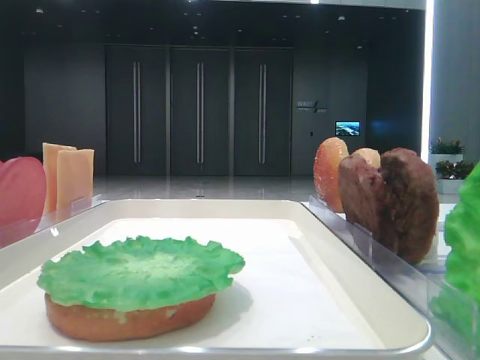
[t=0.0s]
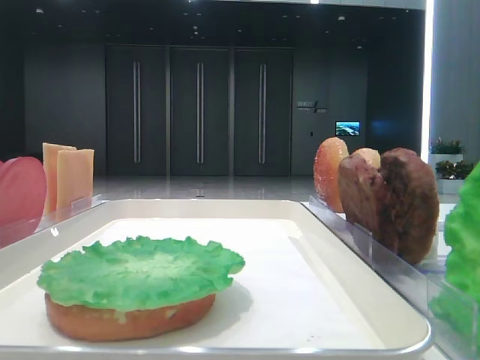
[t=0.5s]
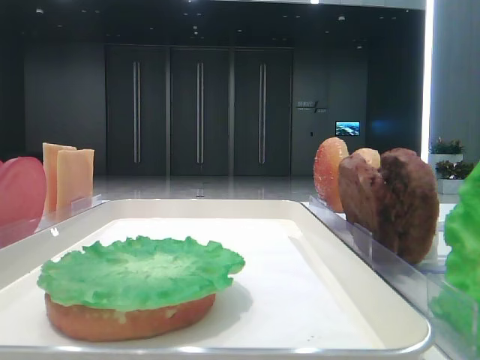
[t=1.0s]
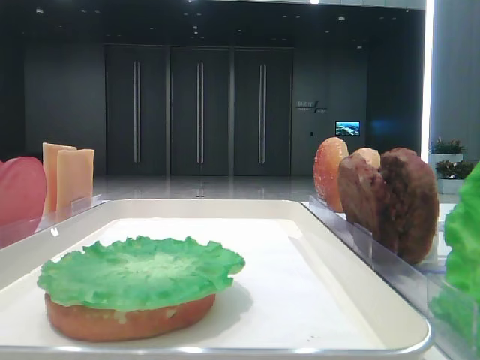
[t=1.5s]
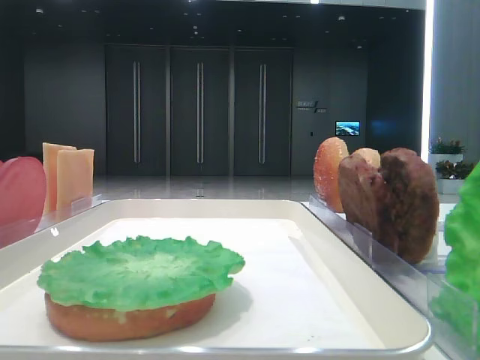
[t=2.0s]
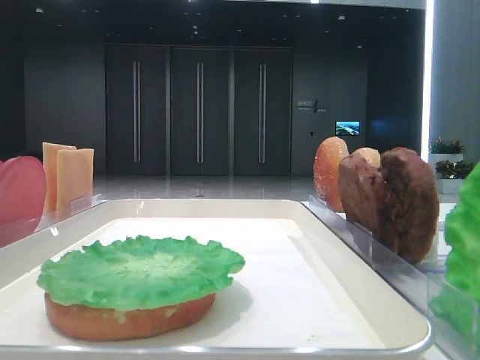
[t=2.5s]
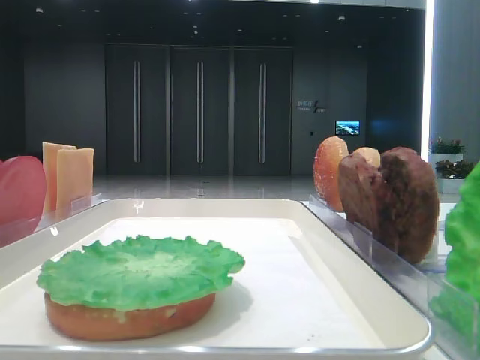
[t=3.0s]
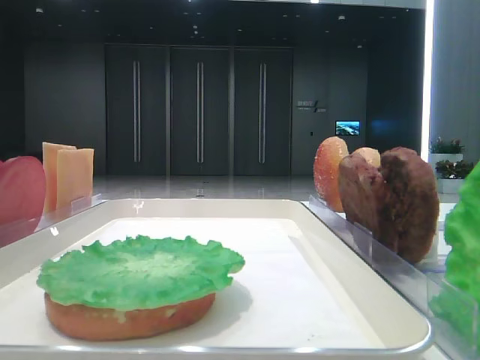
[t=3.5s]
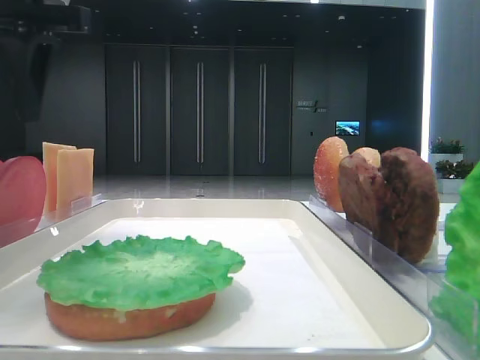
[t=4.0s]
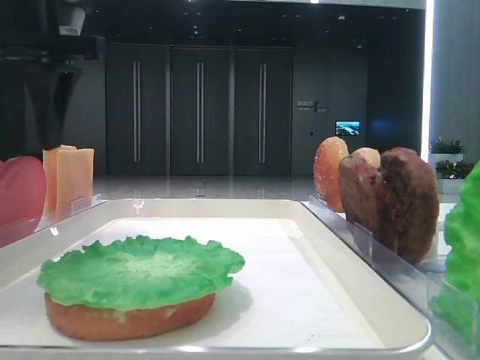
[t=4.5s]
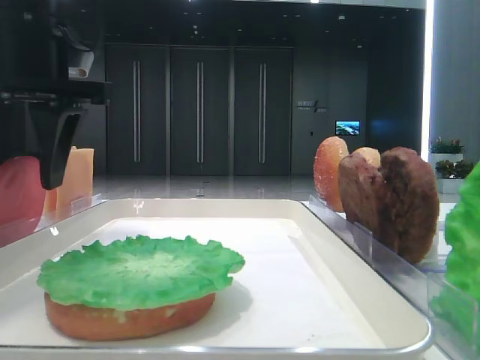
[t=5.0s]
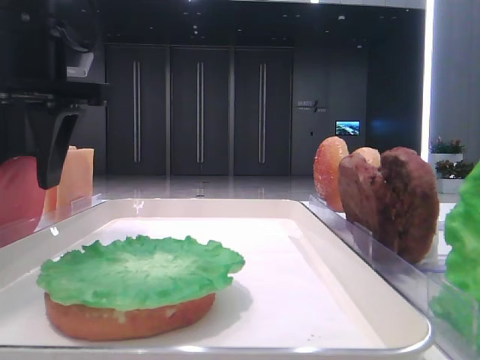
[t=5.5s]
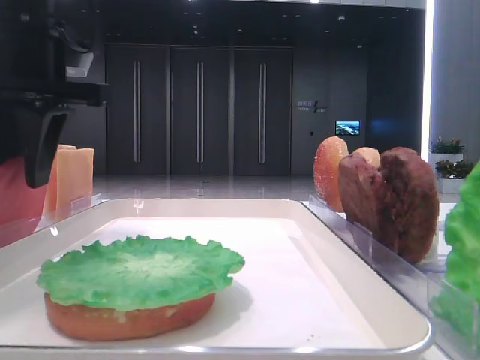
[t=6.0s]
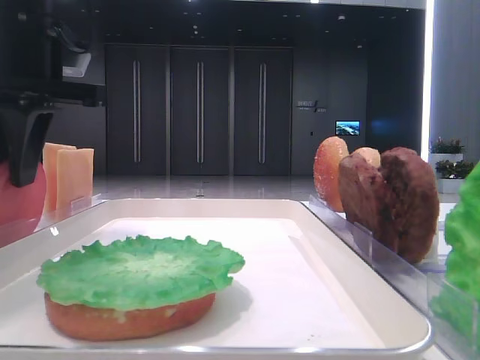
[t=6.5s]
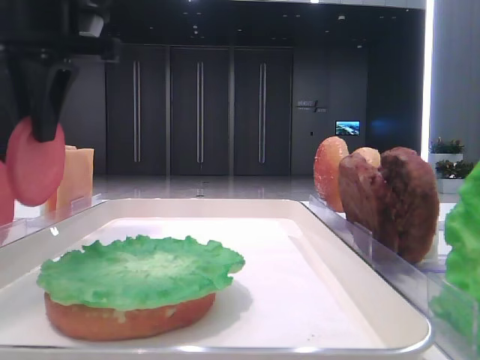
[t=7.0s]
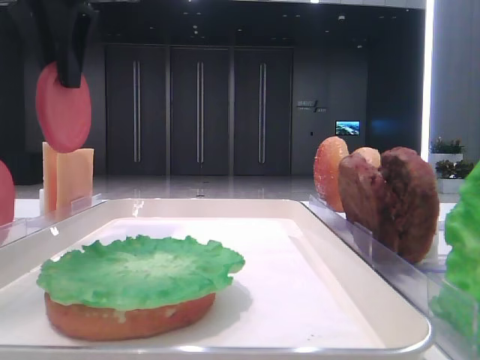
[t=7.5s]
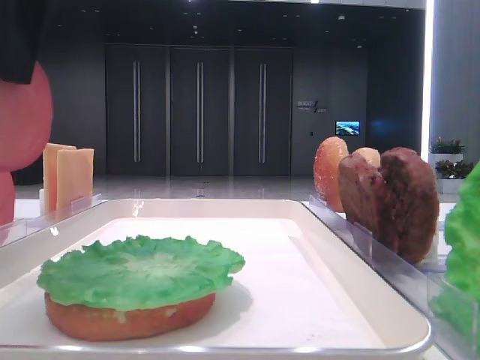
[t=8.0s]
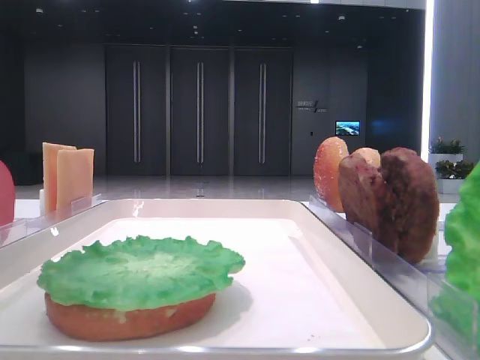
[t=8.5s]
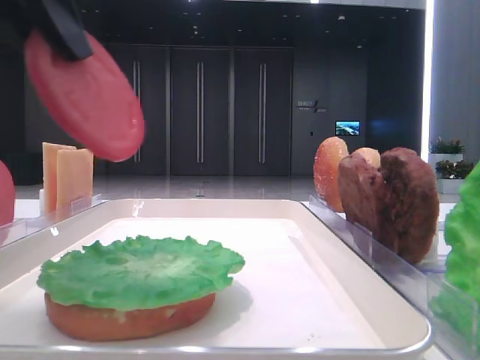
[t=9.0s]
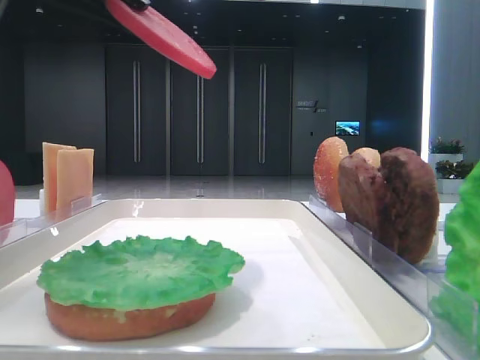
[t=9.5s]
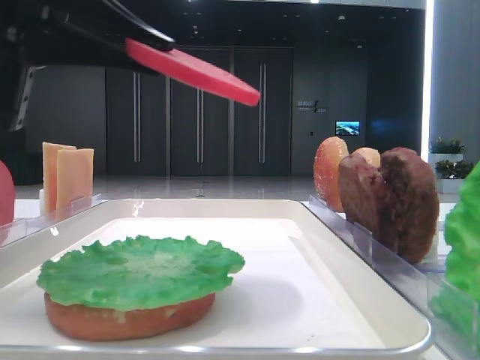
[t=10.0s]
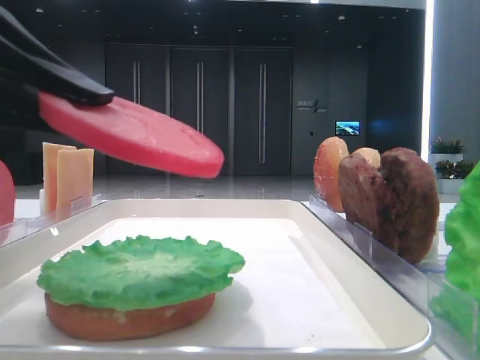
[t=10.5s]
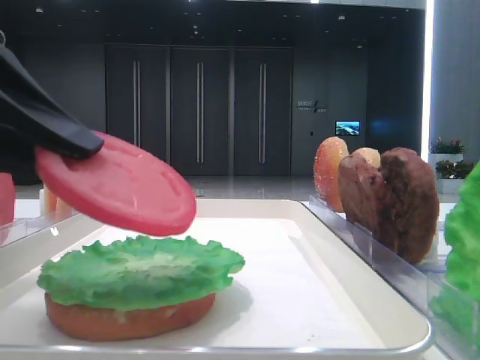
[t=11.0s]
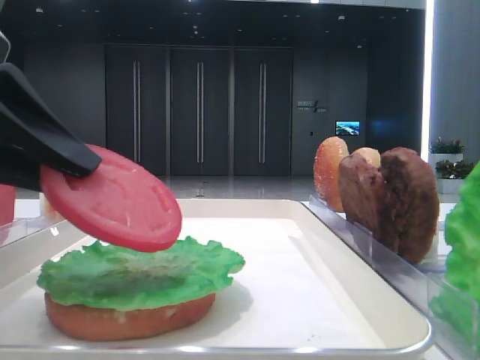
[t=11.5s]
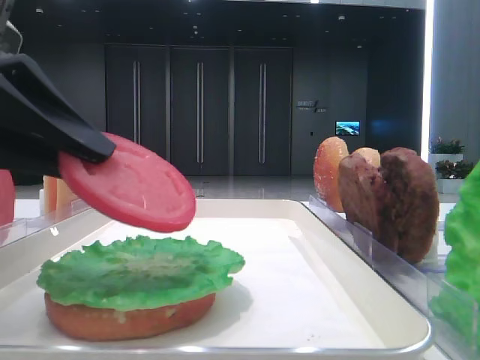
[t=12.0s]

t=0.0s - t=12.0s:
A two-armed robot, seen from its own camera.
Step, t=0.0s - t=6.0s: Pick up the tomato slice with the left hand.
t=2.0s - t=4.0s: The left gripper shifts about 25 cm forward and to the right.
t=4.0s - t=6.0s: The left gripper travels downward by roughly 5 cm.
t=6.0s - t=8.0s: The left gripper travels upward and backward by some 10 cm, and closes its fingers.
t=8.0s - t=10.0s: The left gripper goes approximately 10 cm downward.
t=10.0s - t=12.0s: The left gripper shifts by roughly 5 cm.

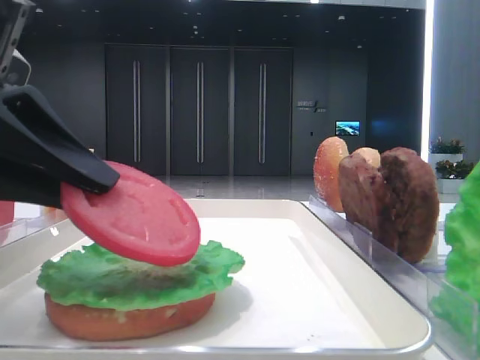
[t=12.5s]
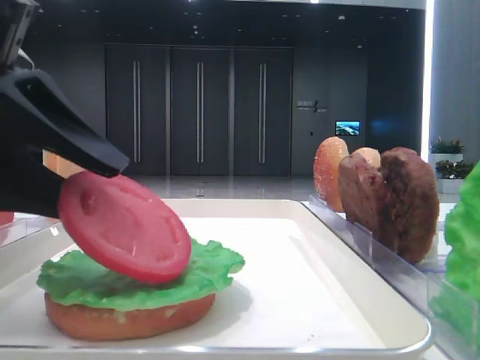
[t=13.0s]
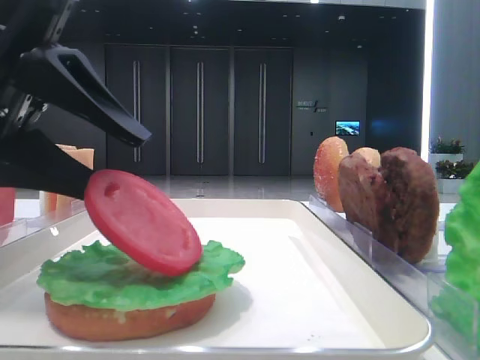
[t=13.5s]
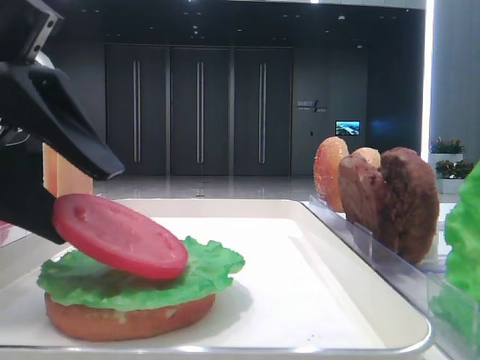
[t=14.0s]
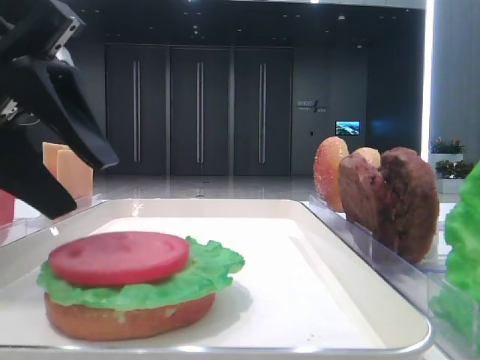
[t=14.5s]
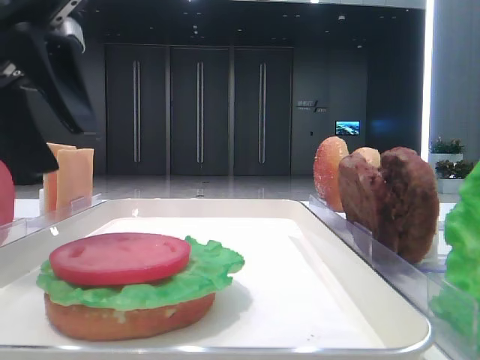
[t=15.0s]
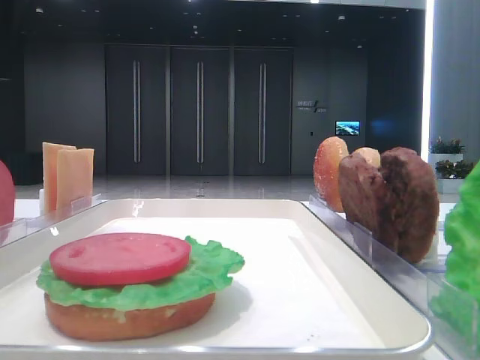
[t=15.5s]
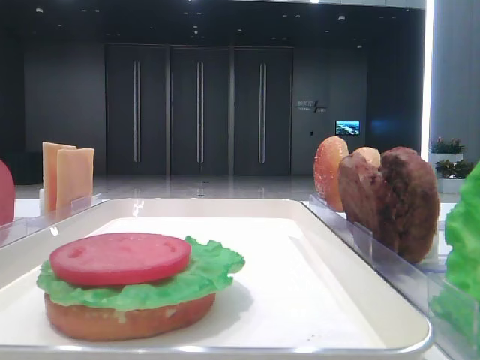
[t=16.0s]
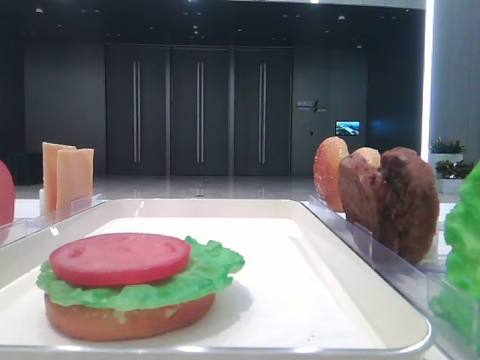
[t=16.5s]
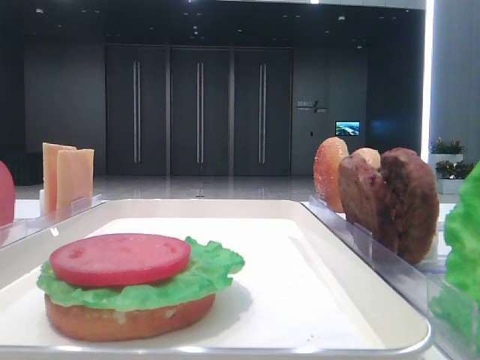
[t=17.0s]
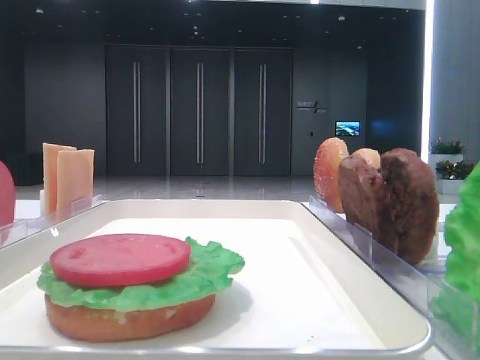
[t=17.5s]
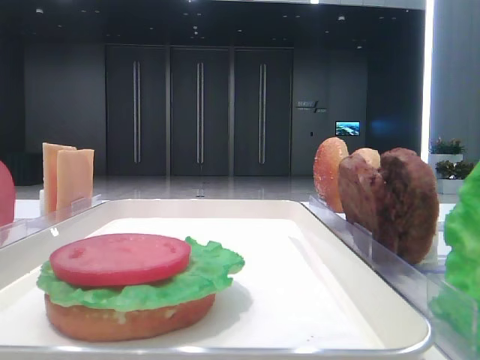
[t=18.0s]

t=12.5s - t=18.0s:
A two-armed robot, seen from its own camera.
t=12.5s - t=14.5s: The left gripper heads forward, covering some 5 cm, and opens up.
t=14.5s - t=16.0s: The left gripper moves to the left, upward and forward, roughly 20 cm.

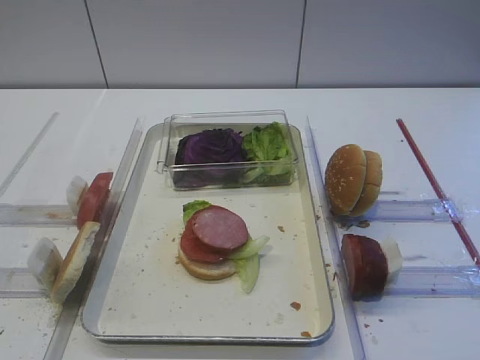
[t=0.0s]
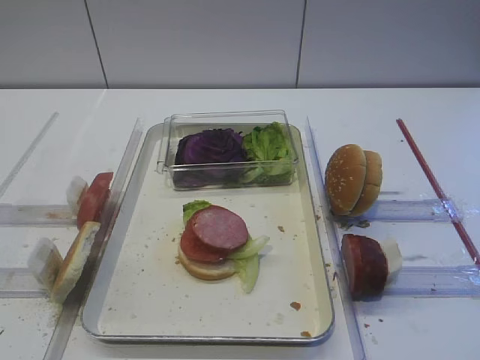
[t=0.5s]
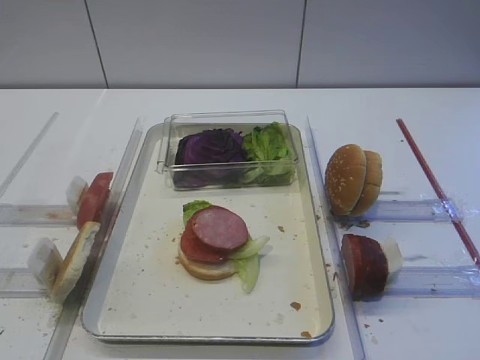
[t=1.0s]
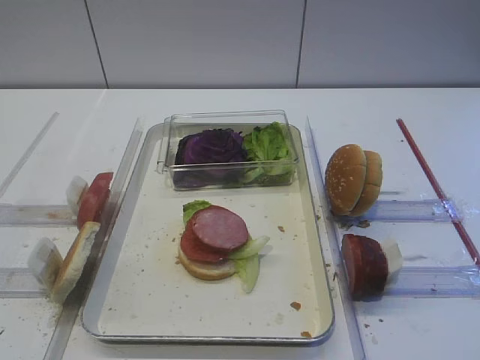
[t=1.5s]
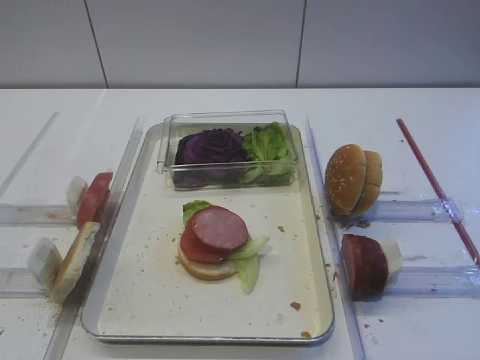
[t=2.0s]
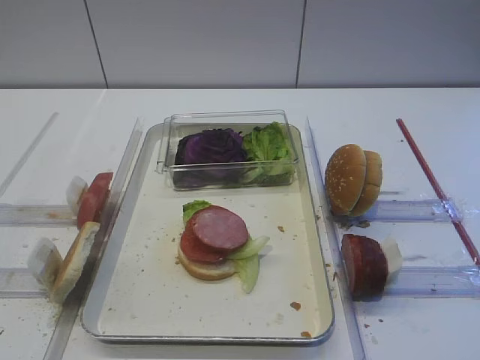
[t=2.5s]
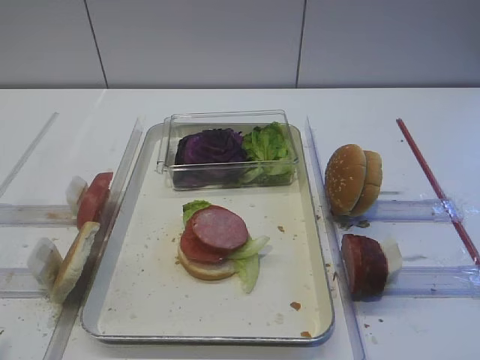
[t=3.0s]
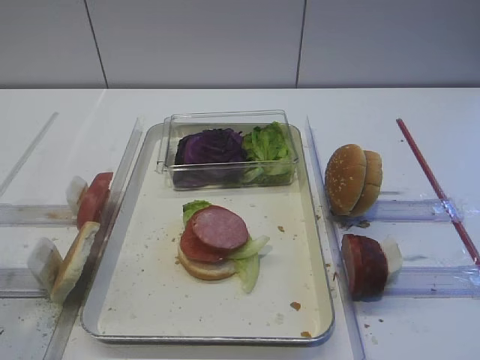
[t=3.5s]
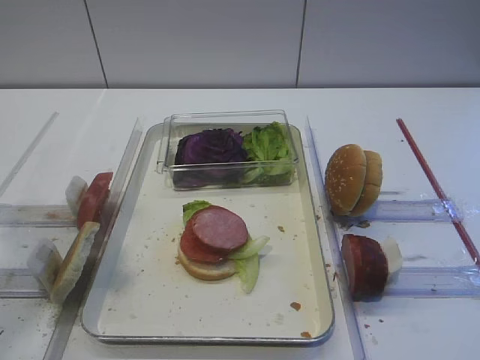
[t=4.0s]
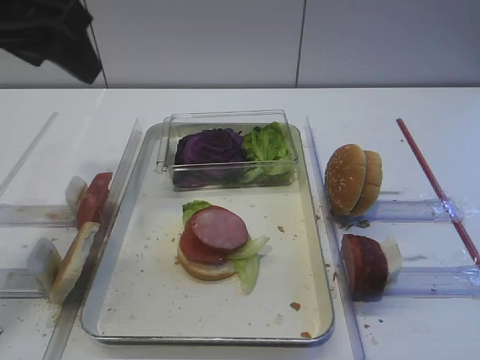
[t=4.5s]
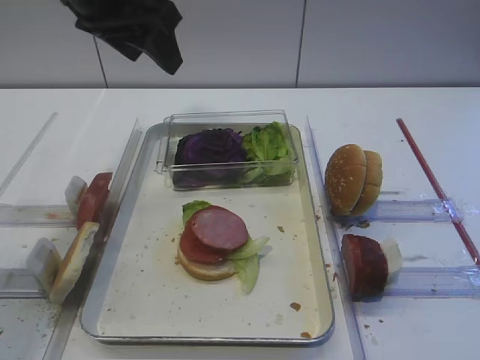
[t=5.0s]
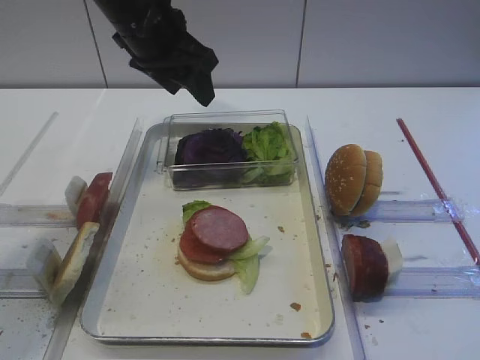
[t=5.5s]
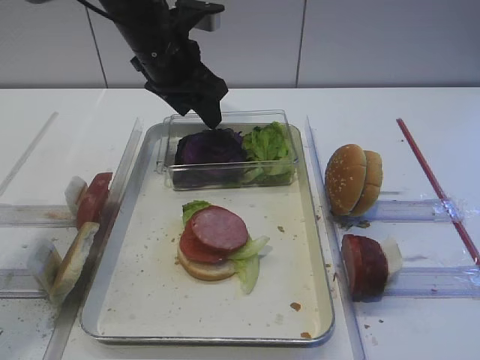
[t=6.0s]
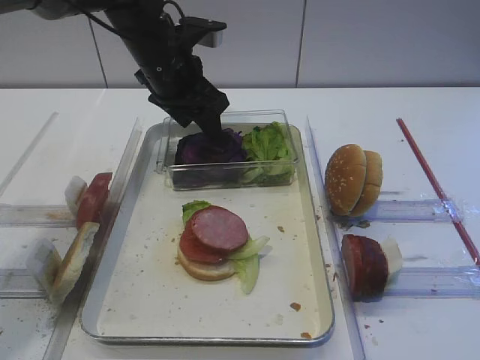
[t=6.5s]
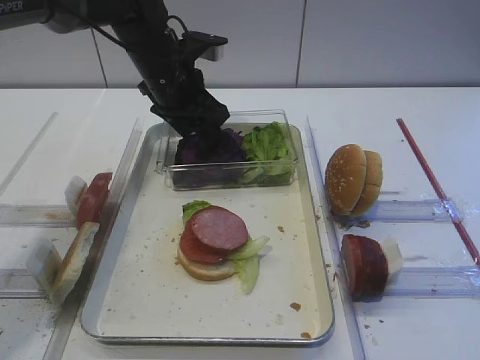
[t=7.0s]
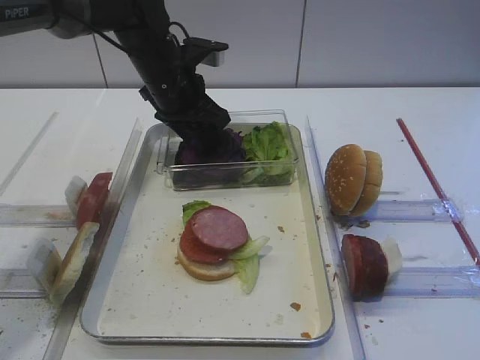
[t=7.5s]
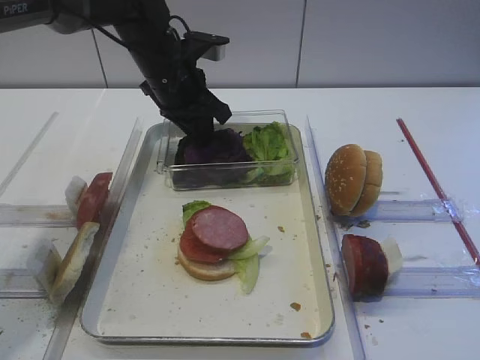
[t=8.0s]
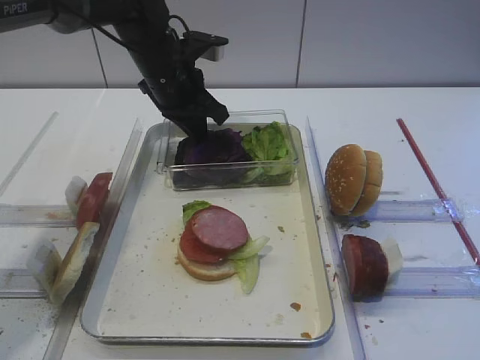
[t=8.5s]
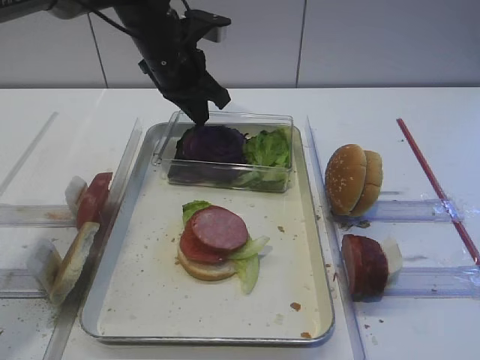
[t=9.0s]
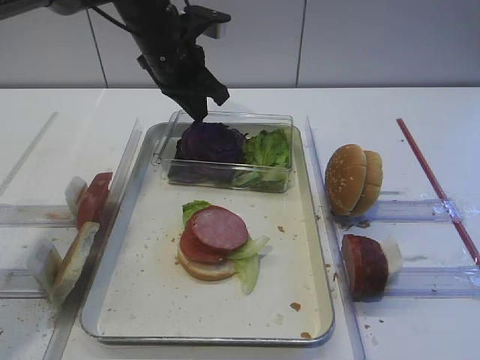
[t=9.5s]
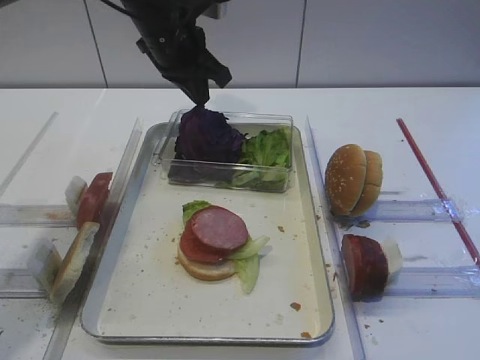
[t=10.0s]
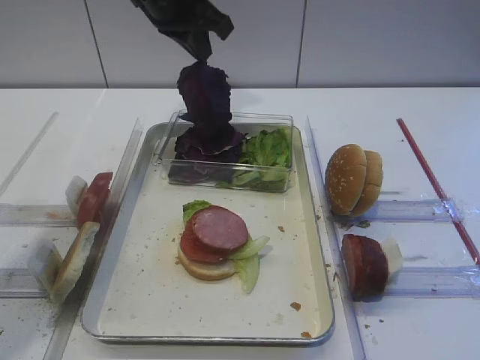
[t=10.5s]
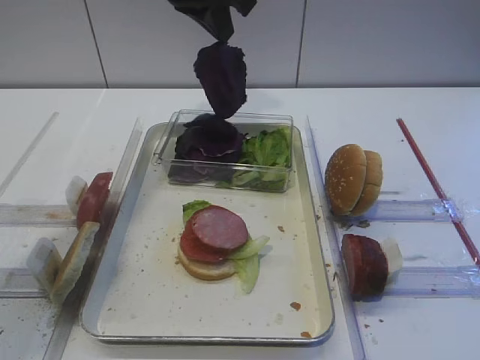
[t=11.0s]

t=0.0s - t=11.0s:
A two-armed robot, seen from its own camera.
t=2.0s - t=3.5s: The left gripper moves upward and forward, some 10 cm.
t=3.5s - t=5.5s: The left gripper is displaced forward and to the right by some 40 cm.
t=5.5s - t=7.5s: The left gripper moves downward, roughly 10 cm.
t=7.5s - t=9.0s: The left gripper closes up.
t=9.0s - t=11.0s: The left gripper travels upward by some 10 cm.
